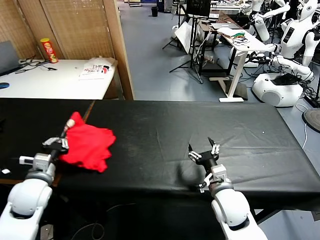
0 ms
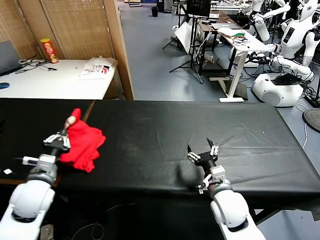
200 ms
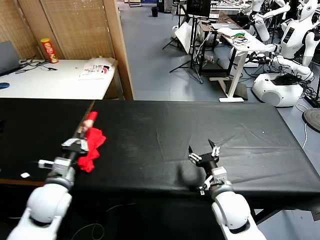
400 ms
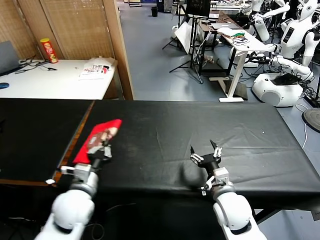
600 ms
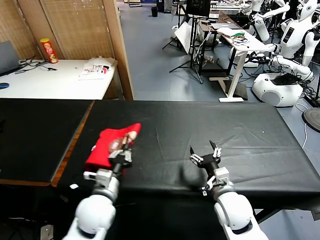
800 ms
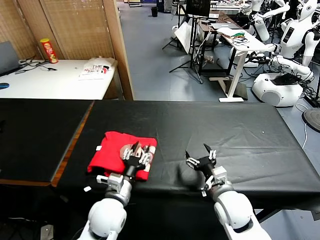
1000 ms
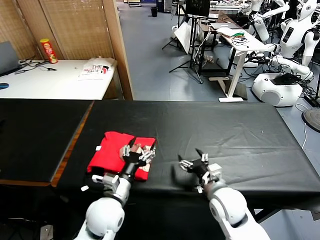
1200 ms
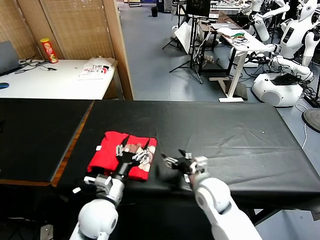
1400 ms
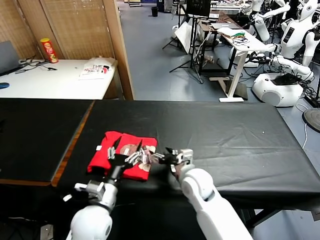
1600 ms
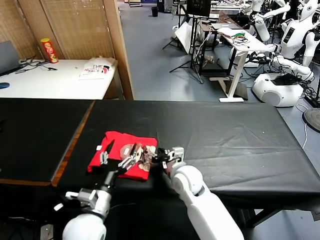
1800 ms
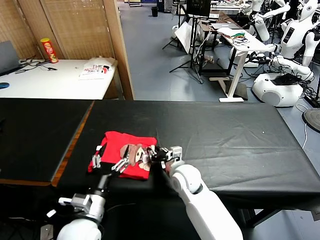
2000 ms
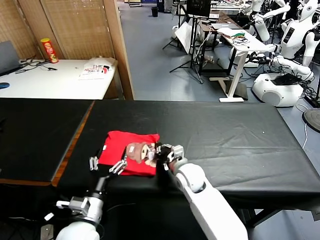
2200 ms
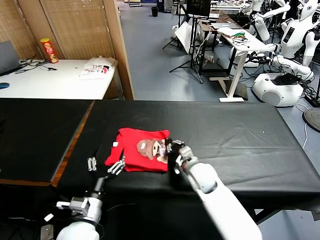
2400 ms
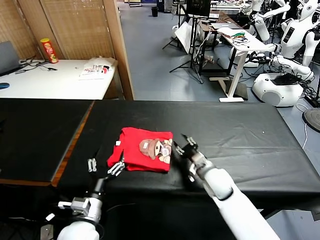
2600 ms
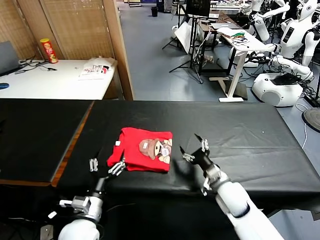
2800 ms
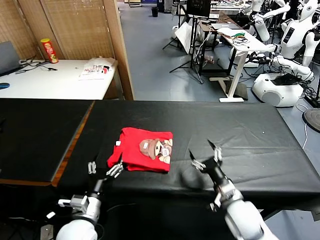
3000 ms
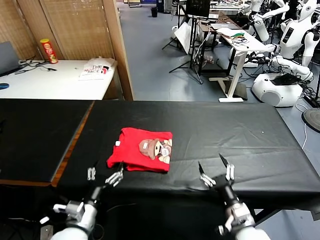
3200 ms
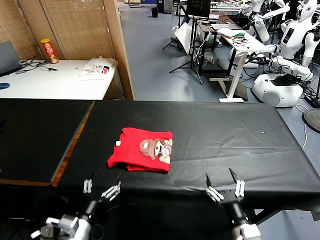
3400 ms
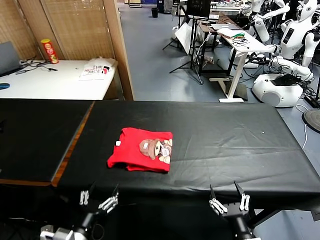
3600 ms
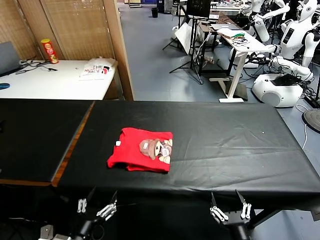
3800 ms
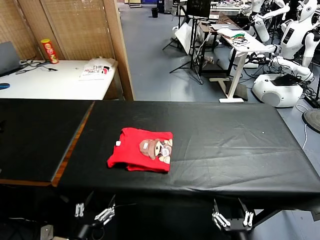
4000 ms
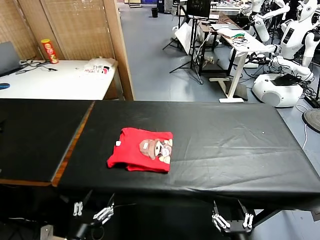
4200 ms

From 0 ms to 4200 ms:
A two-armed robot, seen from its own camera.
Task of the whole recording: fold and organize the clothes.
Step, from 1200 ms to 2800 ms: Drag the clothes to the center of the table.
From 0 ms to 1400 ms: The left gripper heads to the right, covering about 20 cm, and opens up; the right gripper shifts by roughly 5 cm.
From 1400 ms to 2800 ms: The right gripper shifts roughly 5 cm to the right, and closes and opens again, while the left gripper goes roughly 5 cm to the left and backward.
From 2800 ms to 4200 ms: The right gripper shifts roughly 25 cm backward. The left gripper travels backward by about 10 cm.

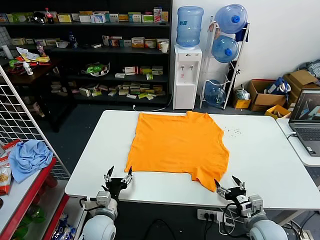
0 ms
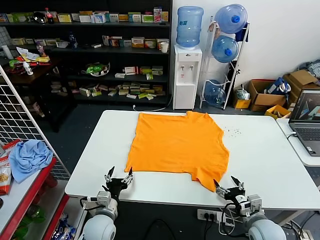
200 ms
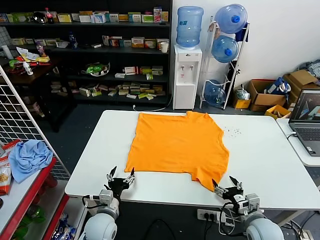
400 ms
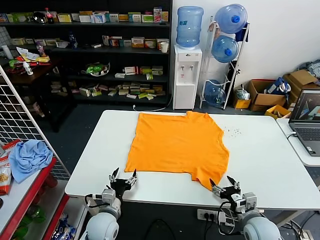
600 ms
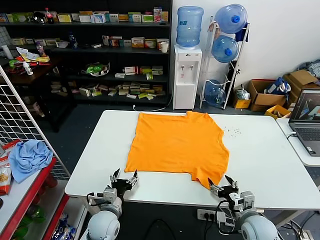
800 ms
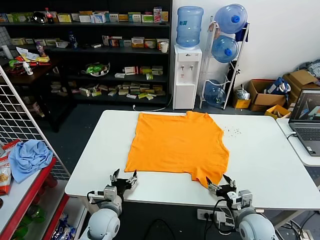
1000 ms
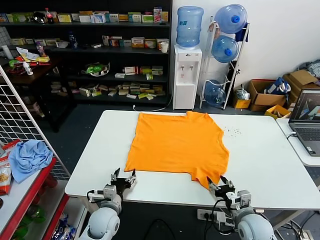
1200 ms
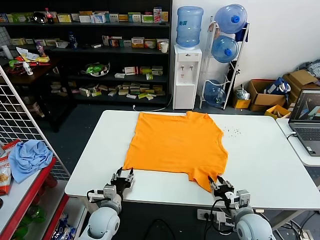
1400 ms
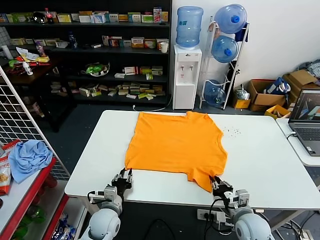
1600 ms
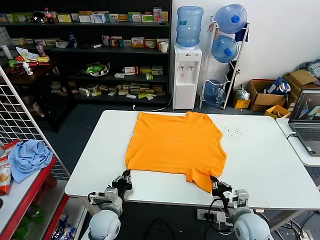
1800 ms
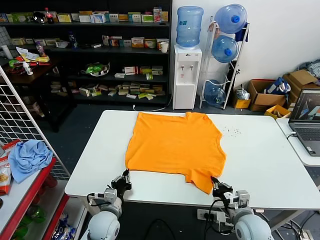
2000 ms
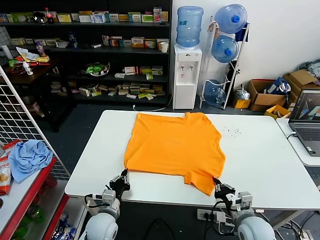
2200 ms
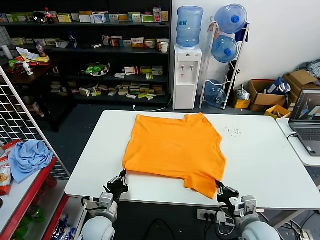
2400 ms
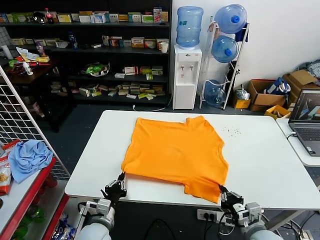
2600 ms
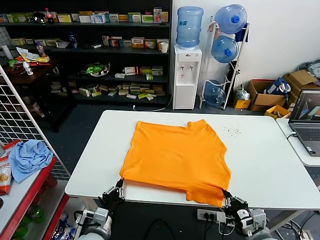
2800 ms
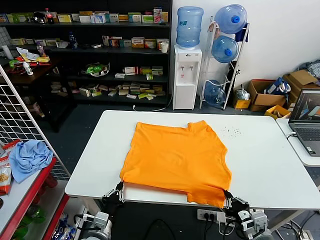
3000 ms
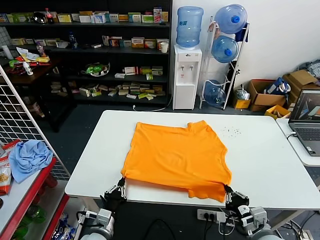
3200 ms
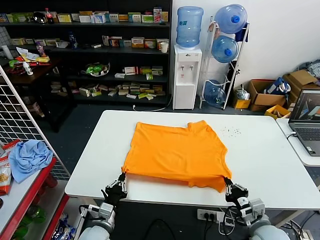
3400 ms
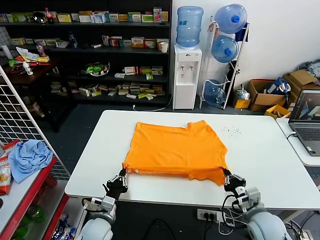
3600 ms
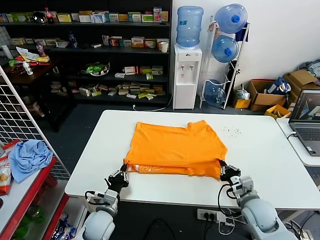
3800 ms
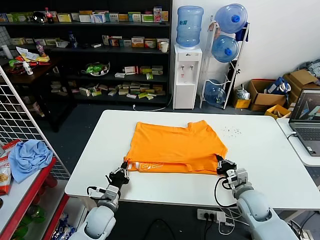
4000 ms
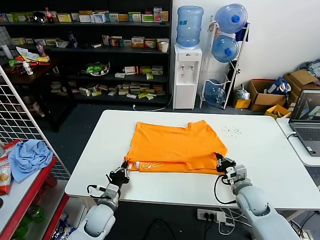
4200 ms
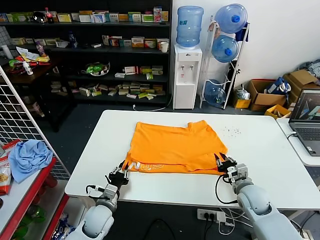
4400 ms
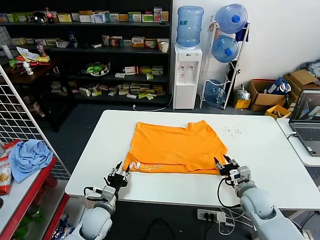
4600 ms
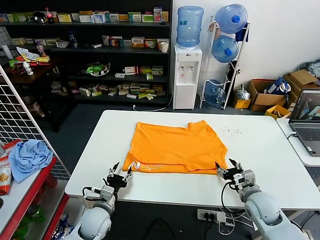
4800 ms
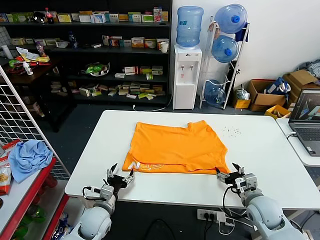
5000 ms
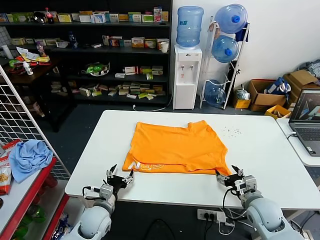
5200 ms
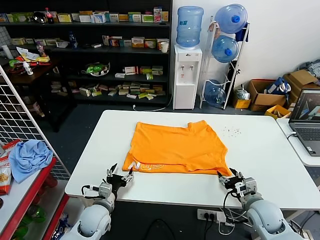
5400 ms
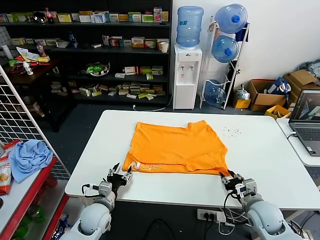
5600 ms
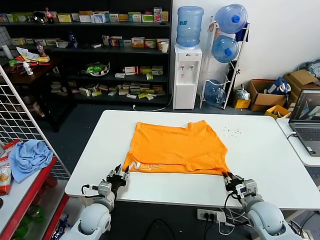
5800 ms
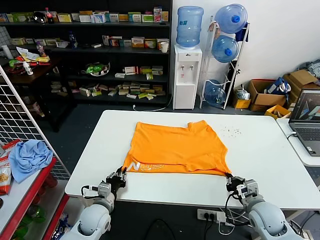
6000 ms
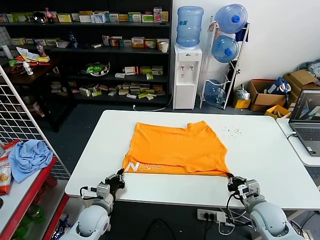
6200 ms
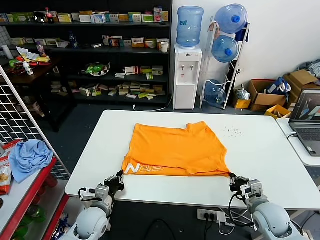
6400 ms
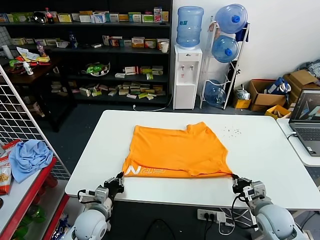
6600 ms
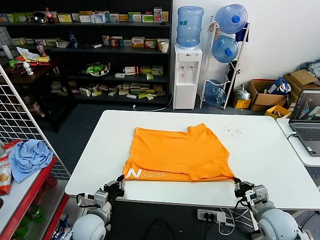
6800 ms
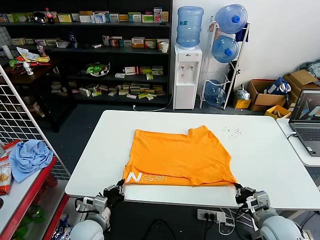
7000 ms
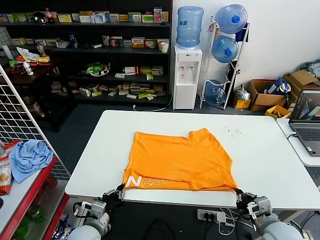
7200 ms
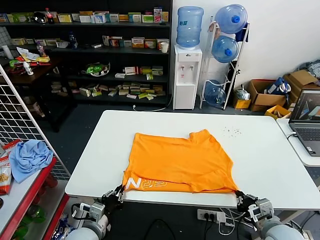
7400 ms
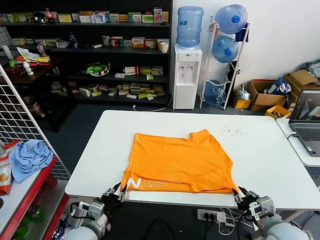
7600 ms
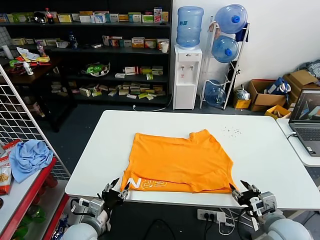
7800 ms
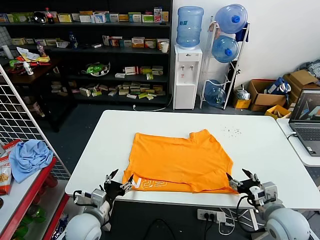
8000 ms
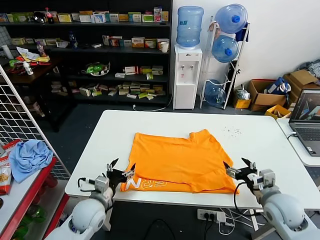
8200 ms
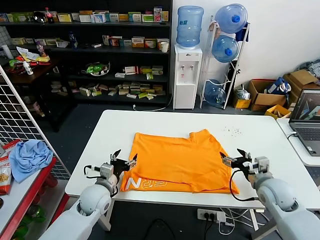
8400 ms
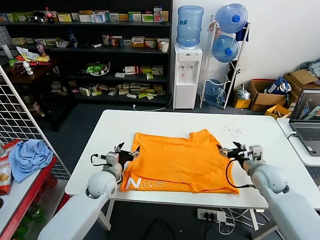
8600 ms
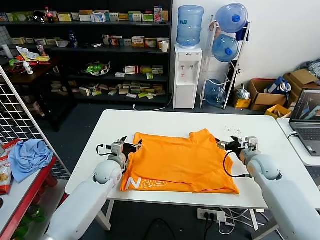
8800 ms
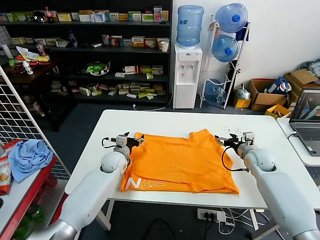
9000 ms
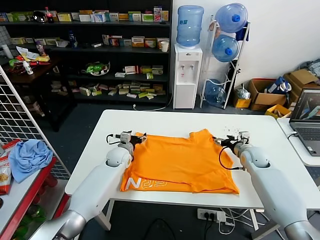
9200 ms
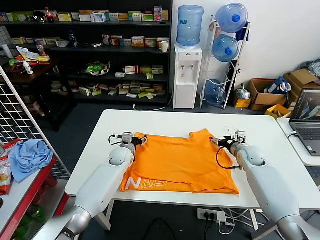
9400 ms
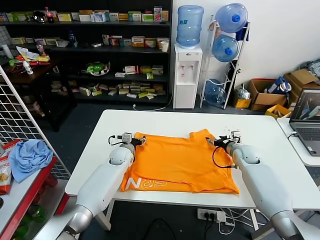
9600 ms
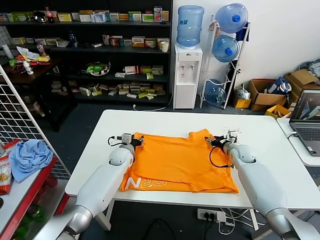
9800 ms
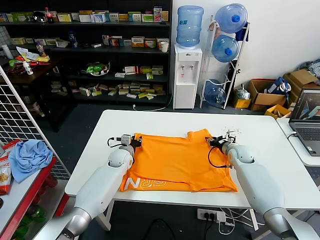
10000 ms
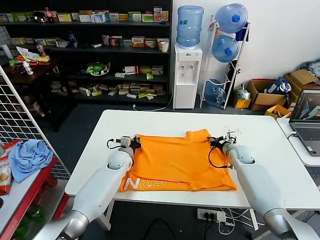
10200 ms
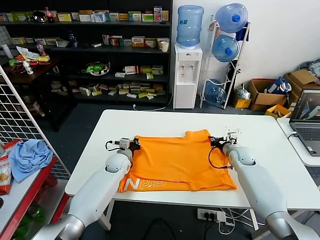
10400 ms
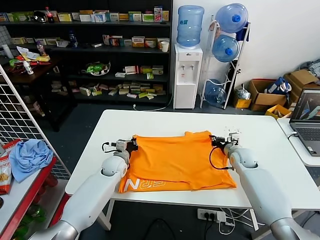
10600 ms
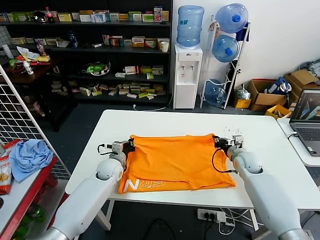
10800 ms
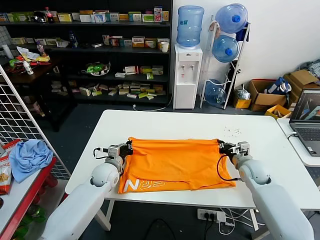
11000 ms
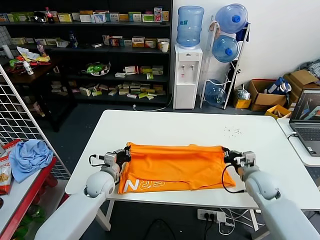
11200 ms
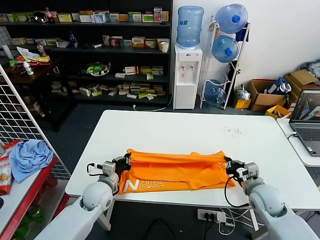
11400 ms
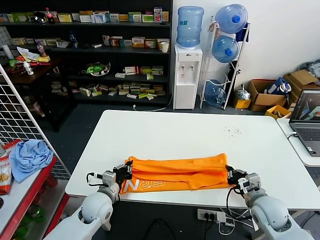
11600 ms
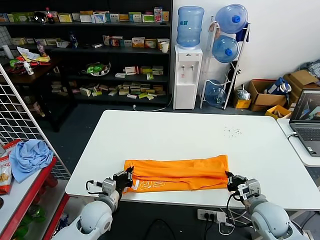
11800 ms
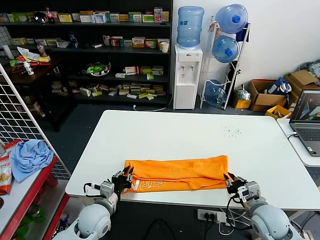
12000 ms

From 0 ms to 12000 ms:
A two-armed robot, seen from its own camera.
Task of the whole recording: fold and organize the clothes.
Step, from 0 ms to 2000 ms: use both grippers simultaneously to clamp the lower edge of the clothing fabric.
Step, from 2200 ms to 4600 ms: use both grippers to drag the lower edge of the fabric forward and fold it over the upper edge.
Step, from 4800 ms to 7600 ms: Drag the clothes downward with both gripper.
Step, from 7800 ms to 10400 ms: use both grippers simultaneously to clamp the upper edge of the clothing fabric.
From 1600 ms to 3000 ms: The left gripper goes about 10 cm backward, and closes up; the right gripper moves backward and upward, some 10 cm.
From 3000 ms to 4400 ms: The left gripper is displaced forward by approximately 10 cm. Meanwhile the right gripper travels forward by some 15 cm, and opens up.
From 4400 ms to 6000 ms: The right gripper travels backward by about 5 cm, and closes up. The left gripper opens, then closes once more.
From 6000 ms to 7600 ms: Both grippers move backward and upward, some 10 cm. The right gripper opens up.
From 7600 ms to 9000 ms: The grippers both shift forward by about 25 cm. The right gripper opens up. Meanwhile the left gripper opens.
From 9000 ms to 10400 ms: The left gripper closes its fingers. Meanwhile the right gripper changes place by some 5 cm, and closes its fingers.
From 10400 ms to 12000 ms: Both grippers move backward, about 25 cm.

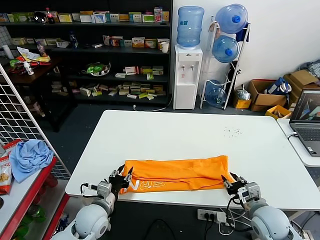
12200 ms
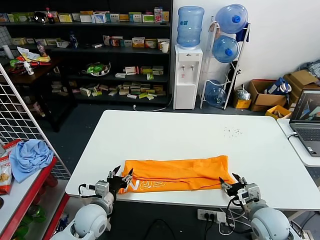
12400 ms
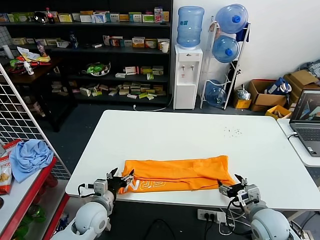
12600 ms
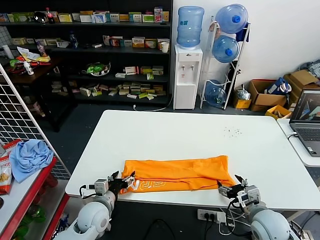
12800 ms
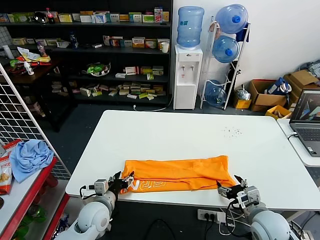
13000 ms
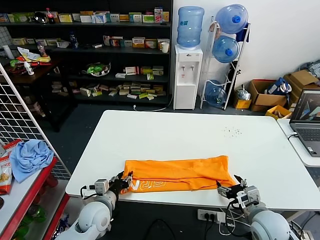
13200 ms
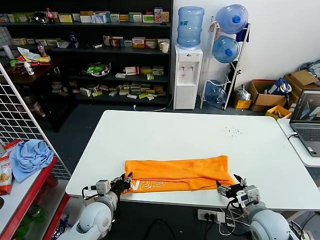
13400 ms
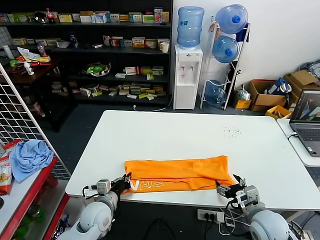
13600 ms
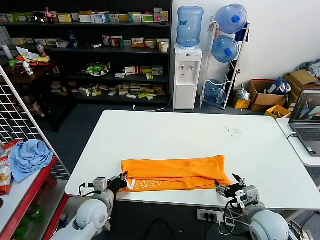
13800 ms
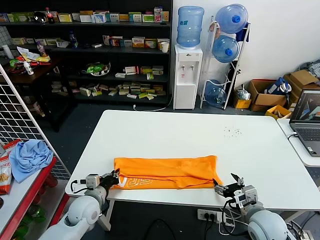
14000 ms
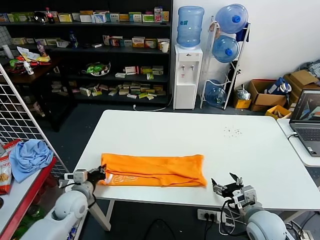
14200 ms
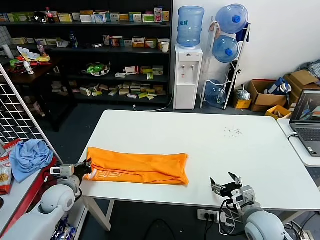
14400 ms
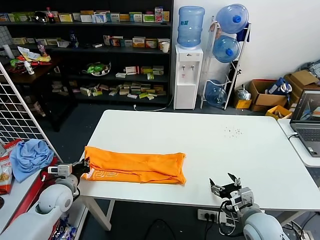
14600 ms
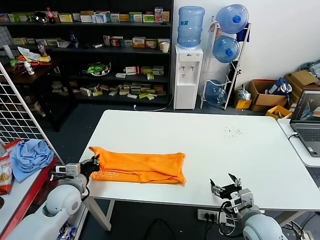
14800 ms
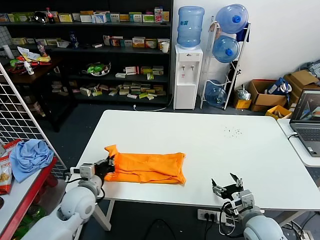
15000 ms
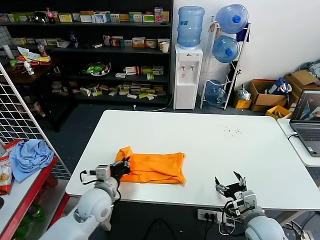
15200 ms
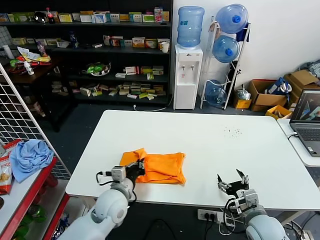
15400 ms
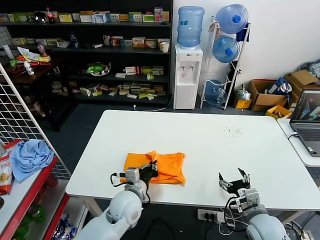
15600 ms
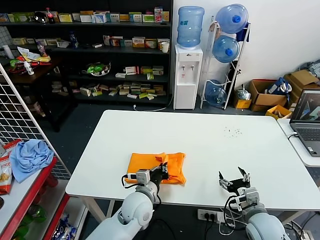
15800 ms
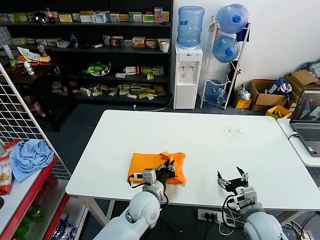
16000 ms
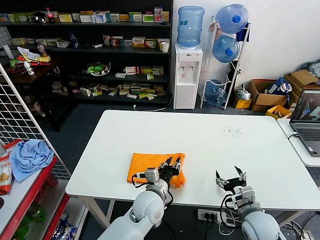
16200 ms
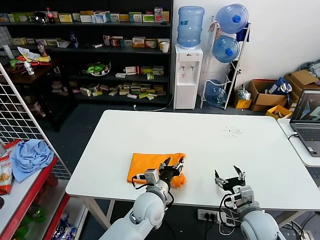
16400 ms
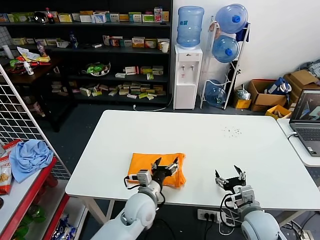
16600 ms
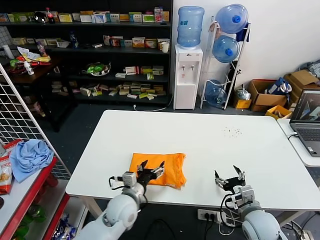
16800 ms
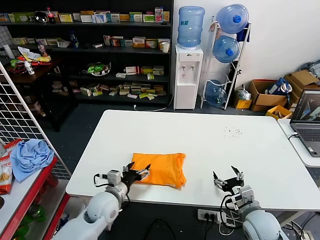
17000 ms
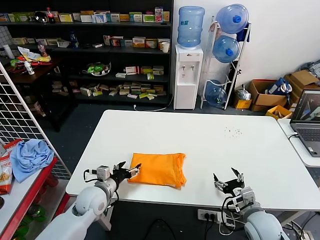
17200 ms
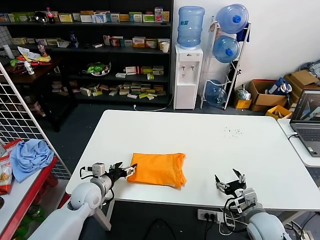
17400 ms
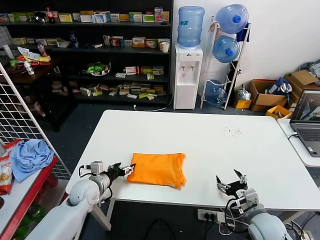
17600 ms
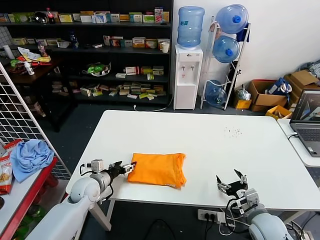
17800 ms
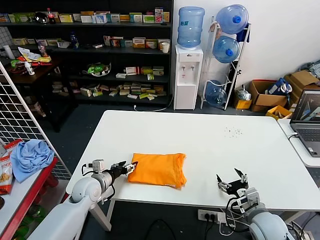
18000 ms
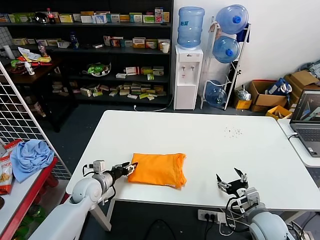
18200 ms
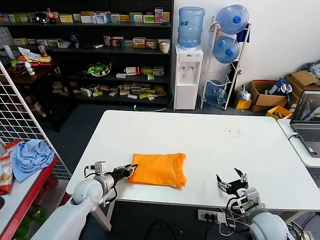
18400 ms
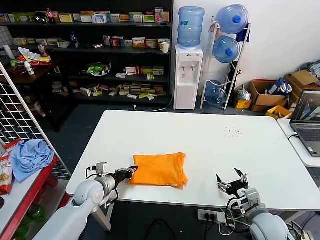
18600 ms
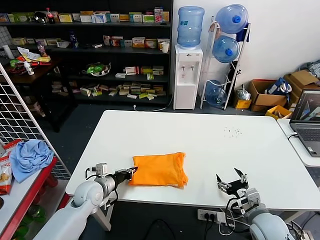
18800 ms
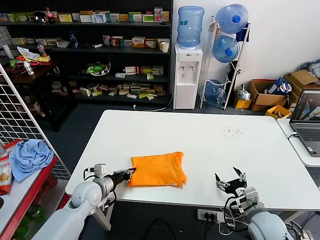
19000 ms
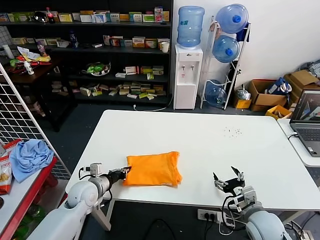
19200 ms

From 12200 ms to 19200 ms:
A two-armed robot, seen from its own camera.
Task of the whole recording: fold and organize the clothes.
Step, from 12600 ms to 13600 ms: use the left gripper to clamp the left edge of the fabric.
Step, from 13800 ms to 16200 ms: use the left gripper to drag the left edge of the fabric to the left and folds it over the right edge.
From 12200 ms to 13600 ms: The right gripper opens its fingers; the left gripper opens, then closes once more.
From 13600 ms to 15000 ms: The left gripper is displaced upward and to the left by about 10 cm.
From 15000 ms to 16400 ms: The left gripper moves to the right, approximately 25 cm, and opens up.
From 16400 ms to 17800 ms: The left gripper shifts about 25 cm to the left.
From 17800 ms to 19200 ms: The left gripper closes up.
